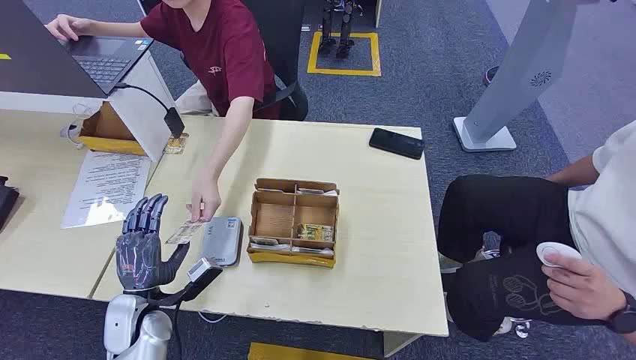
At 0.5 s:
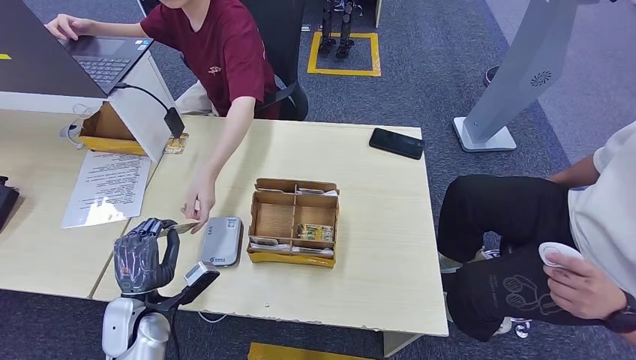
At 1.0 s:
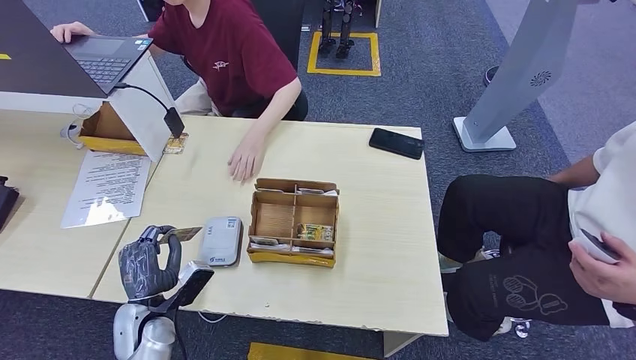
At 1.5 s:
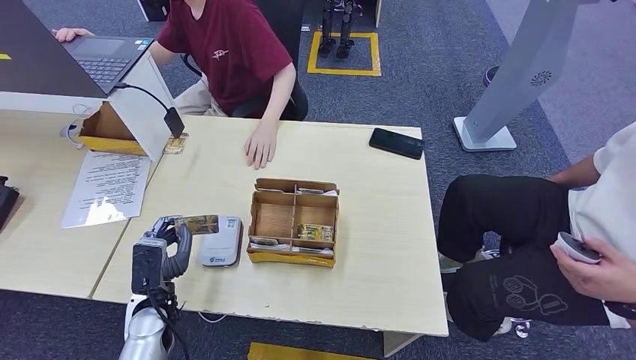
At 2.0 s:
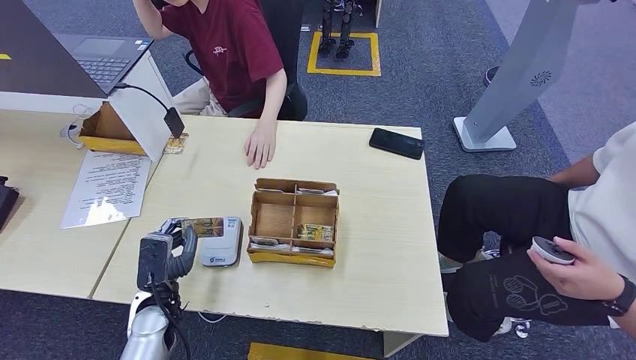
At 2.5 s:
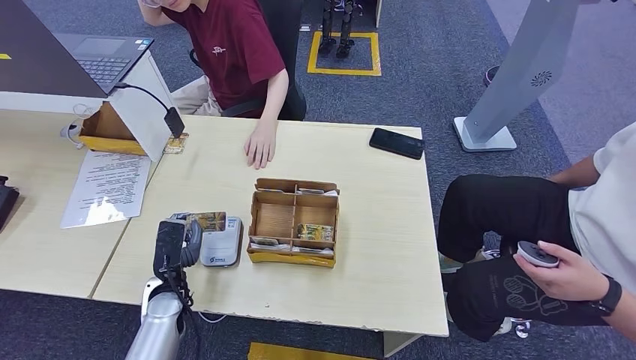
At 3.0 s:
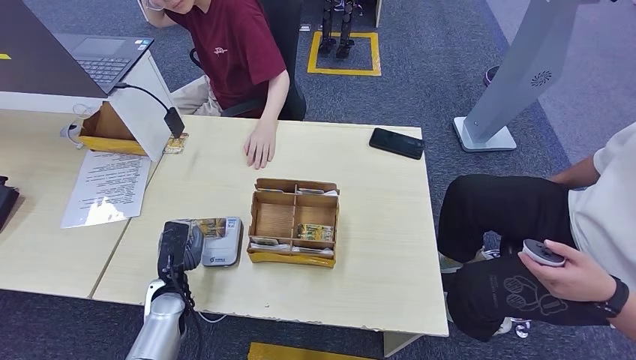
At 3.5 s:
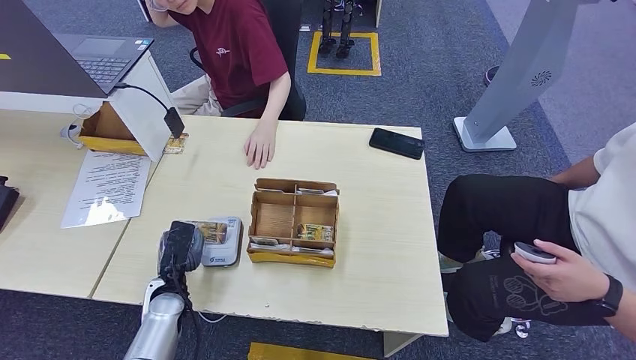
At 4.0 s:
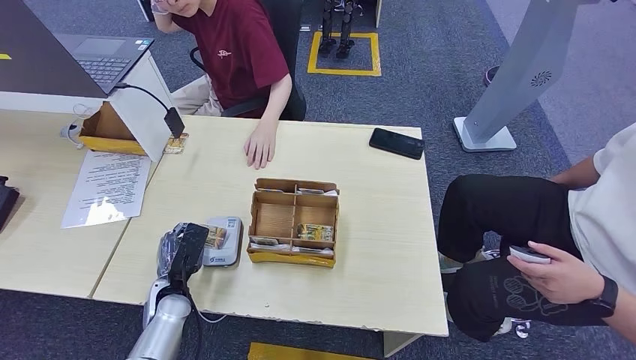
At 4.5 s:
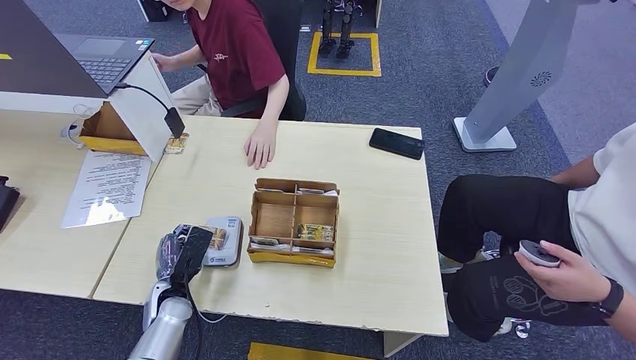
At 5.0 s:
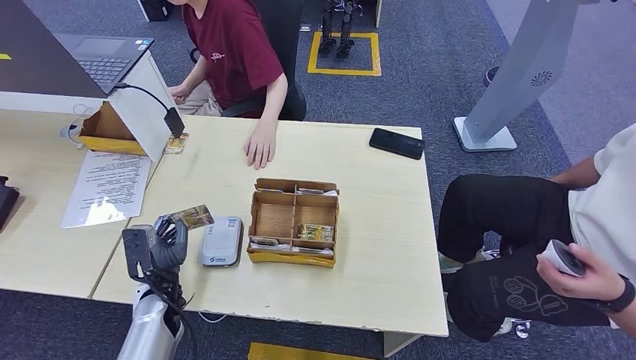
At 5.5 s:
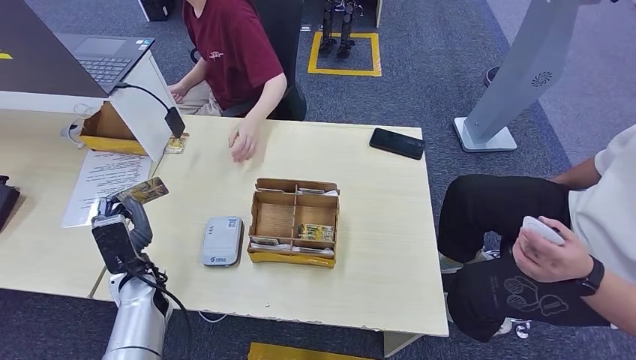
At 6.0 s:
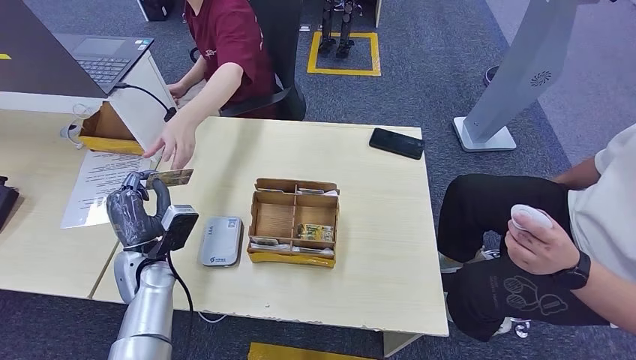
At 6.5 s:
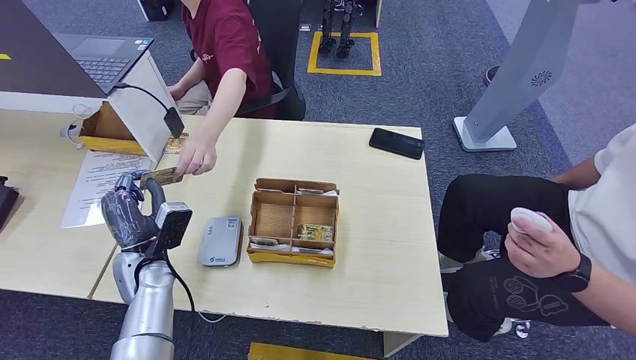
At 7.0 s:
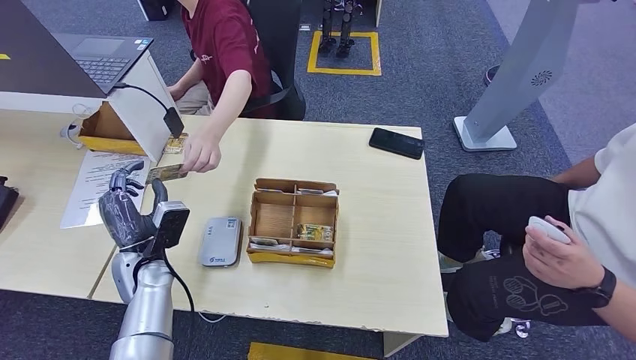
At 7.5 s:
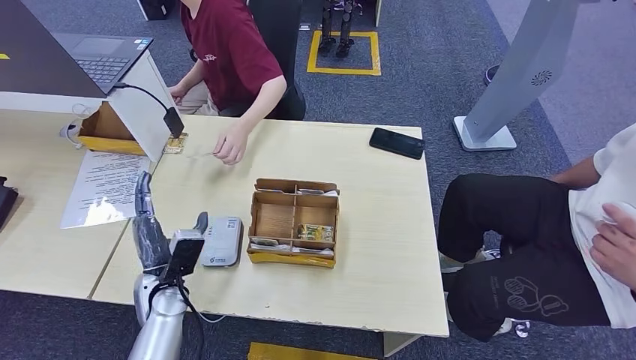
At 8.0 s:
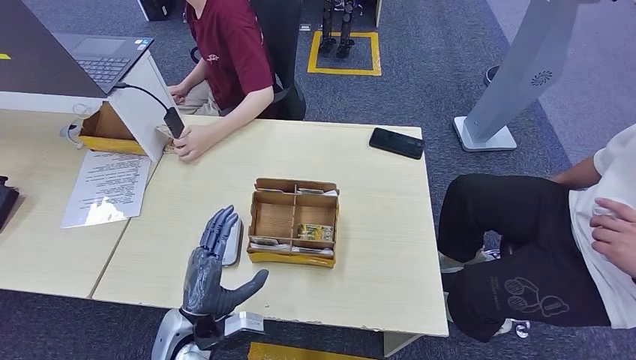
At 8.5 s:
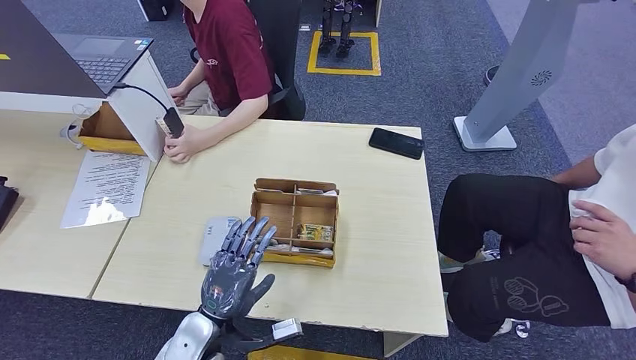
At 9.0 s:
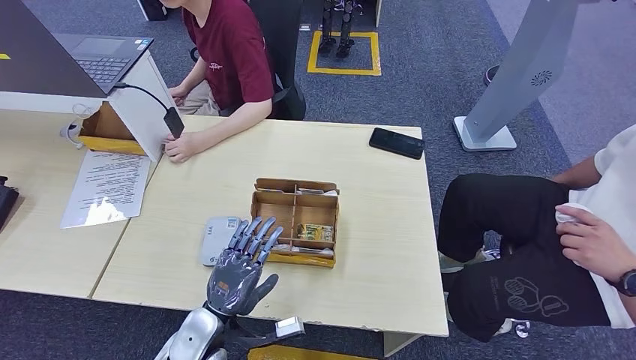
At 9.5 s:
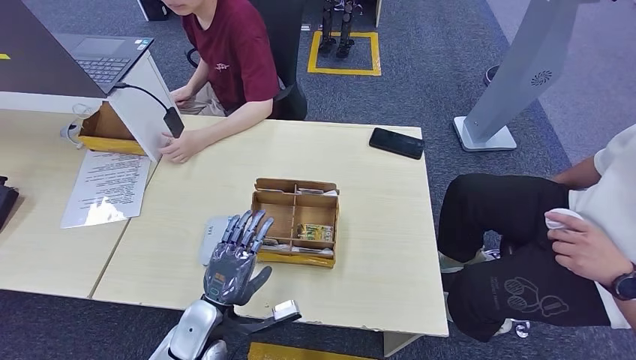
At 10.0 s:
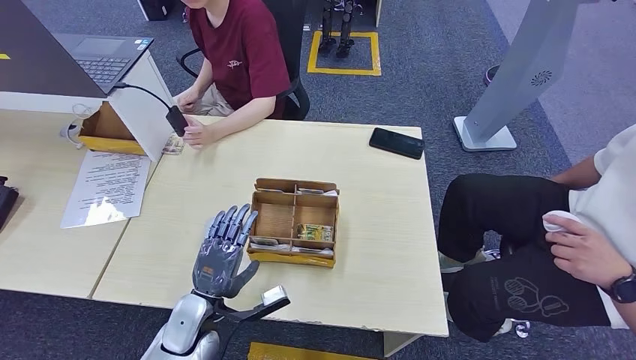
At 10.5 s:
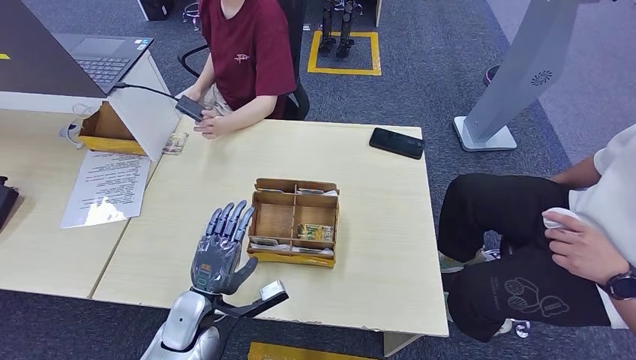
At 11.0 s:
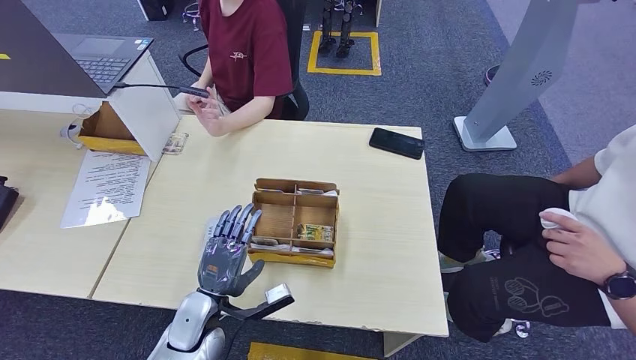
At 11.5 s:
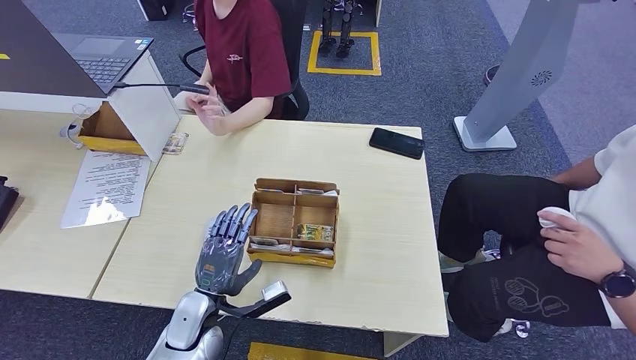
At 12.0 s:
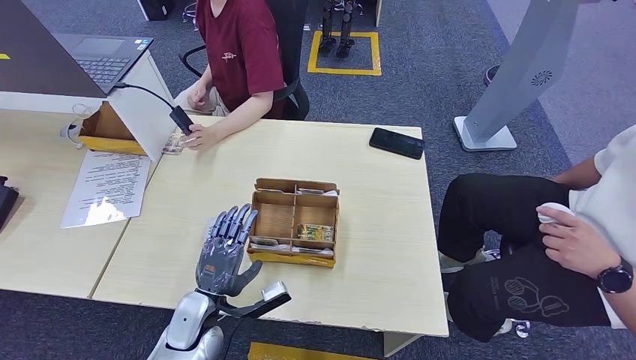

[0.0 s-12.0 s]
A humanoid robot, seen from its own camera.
Step, 0.0 to 0.5 s: Take the ID card from the person's hand.
Step, 1.5 to 4.0 s: Place the ID card on the card reader.
Step, 5.0 to 6.5 s: Hand the ID card to the person.
4.0 to 6.0 s: The left hand heads upward, covering about 10 cm.
6.0 to 8.0 s: The left hand travels backward and to the right by roughly 15 cm.
10.0 to 12.0 s: Both hands stay put.

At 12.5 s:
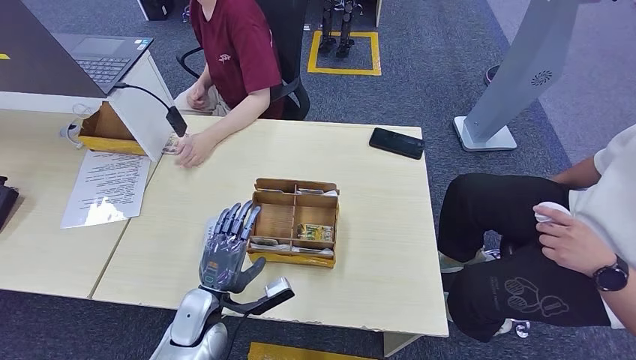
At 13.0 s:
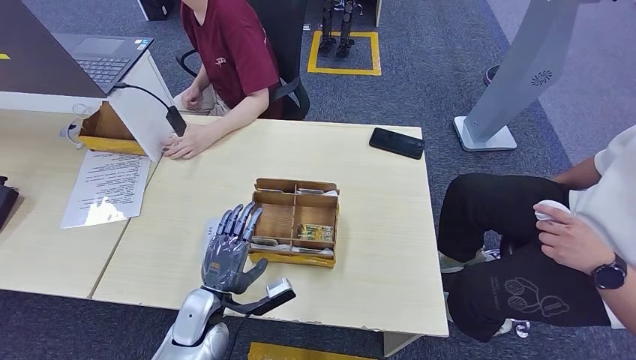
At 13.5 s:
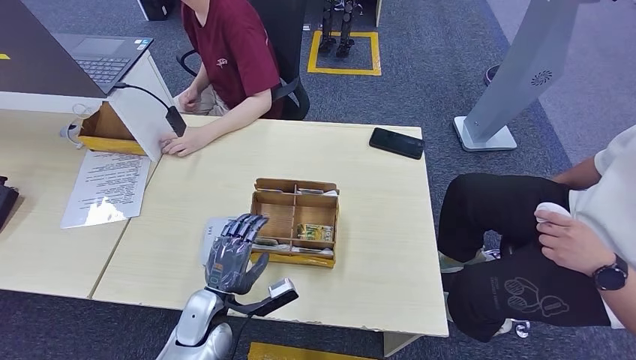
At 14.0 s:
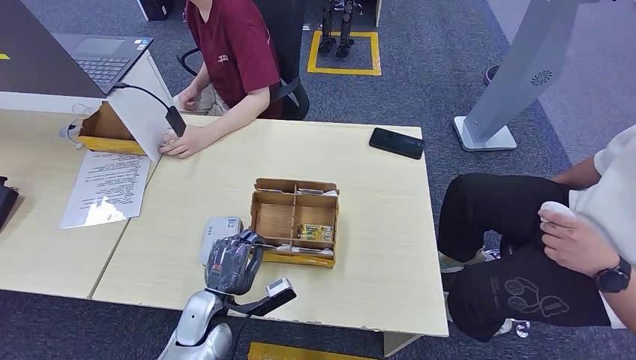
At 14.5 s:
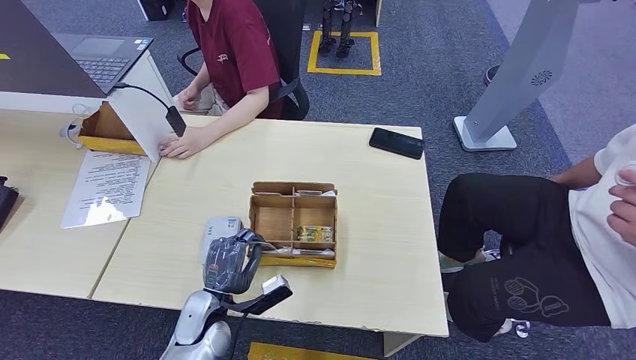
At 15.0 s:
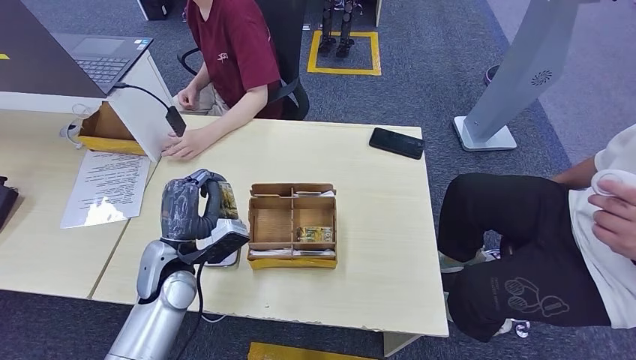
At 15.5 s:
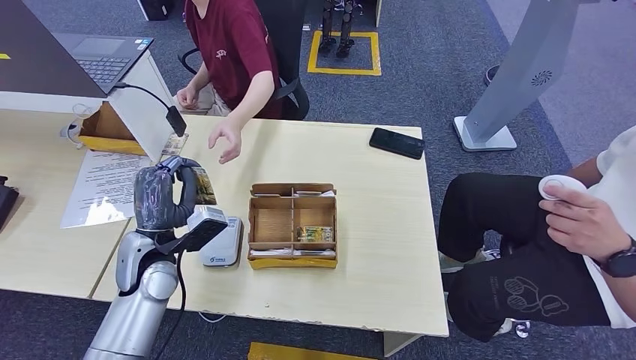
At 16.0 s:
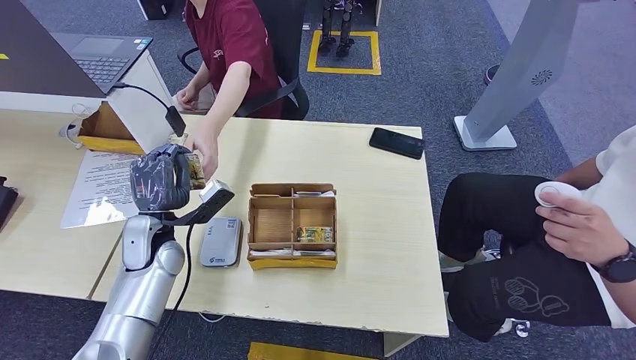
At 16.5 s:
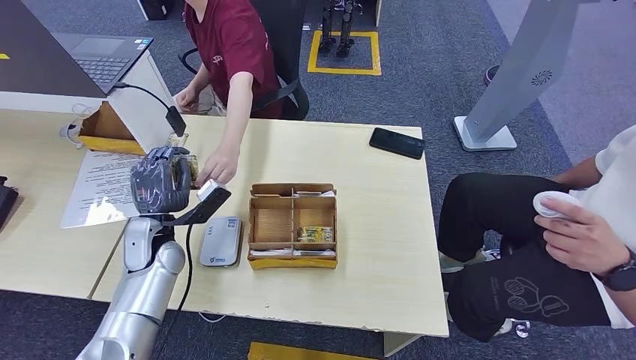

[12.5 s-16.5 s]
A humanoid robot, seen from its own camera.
Step, 12.5 to 15.0 s: Pick up the room key from the key card box.
Step, 15.5 to 16.5 s: Hand the room key to the person.
12.5 to 14.5 s: The hands move only a little.
14.5 to 16.5 s: The left hand heads forward, to the left and upward, covering some 15 cm.
